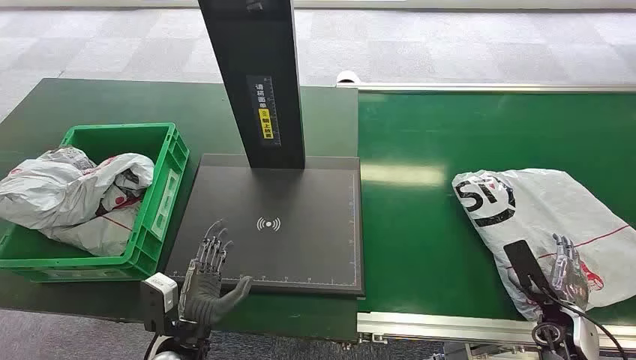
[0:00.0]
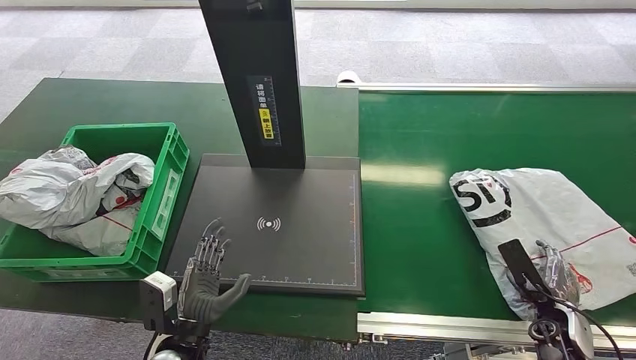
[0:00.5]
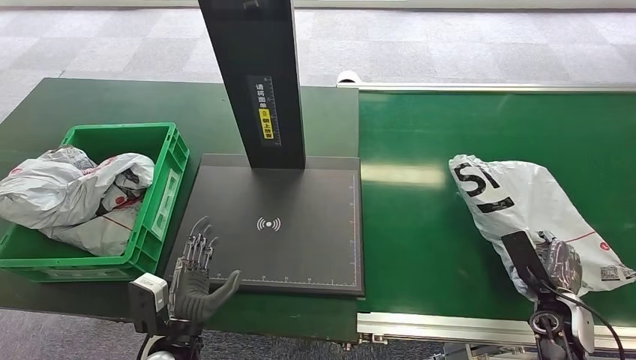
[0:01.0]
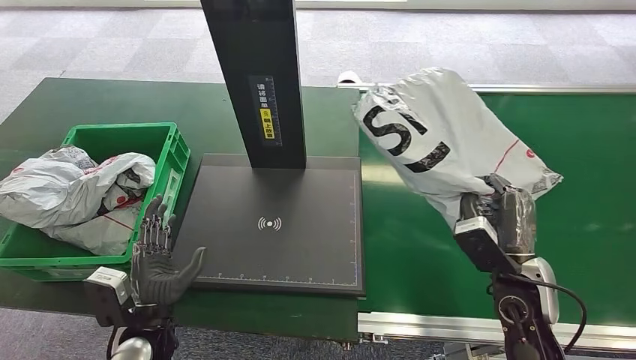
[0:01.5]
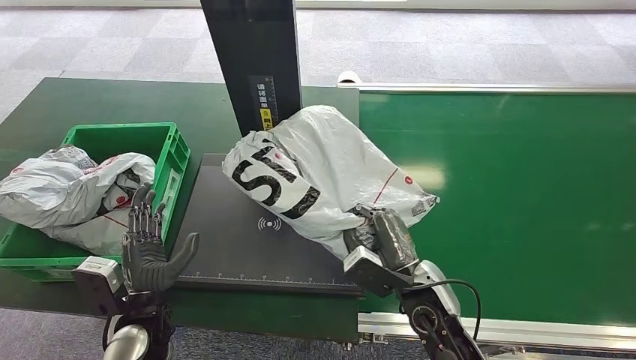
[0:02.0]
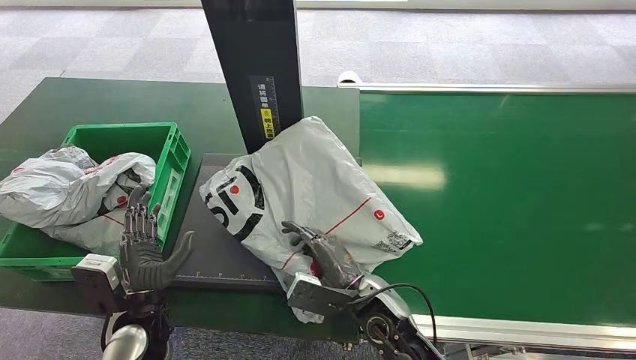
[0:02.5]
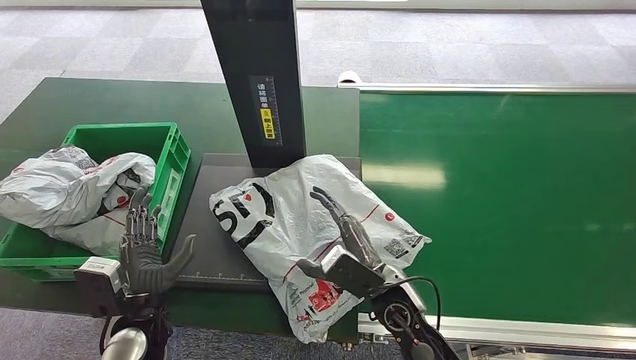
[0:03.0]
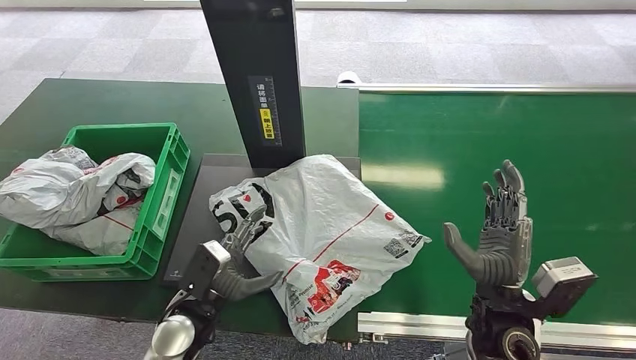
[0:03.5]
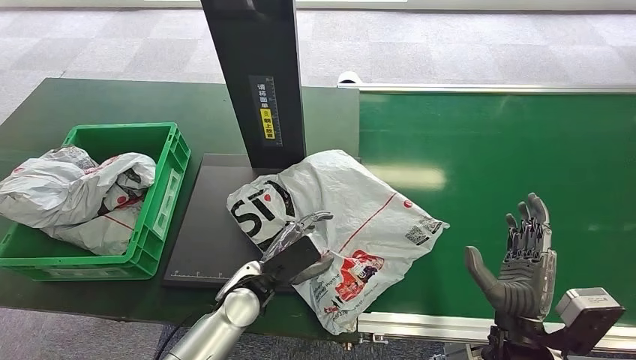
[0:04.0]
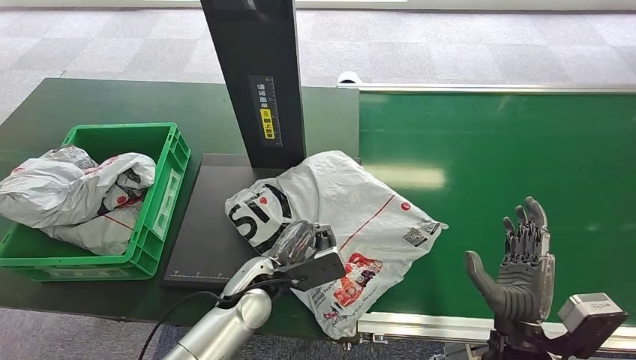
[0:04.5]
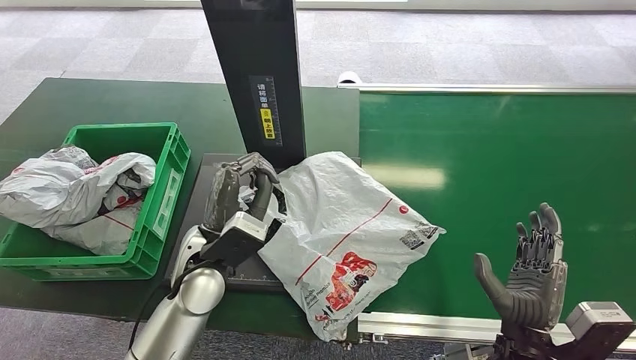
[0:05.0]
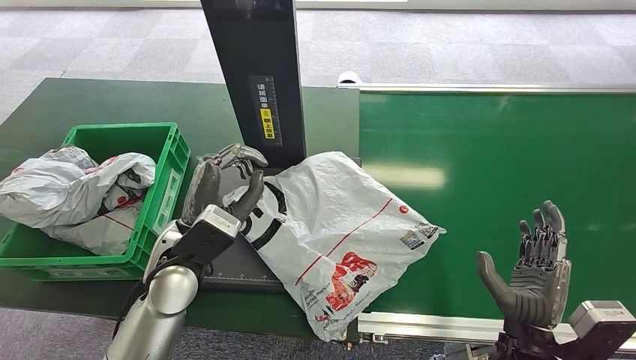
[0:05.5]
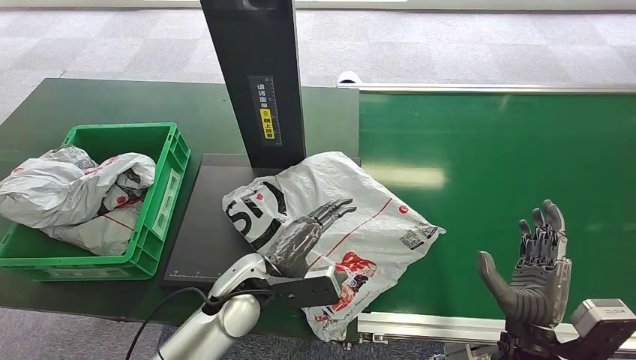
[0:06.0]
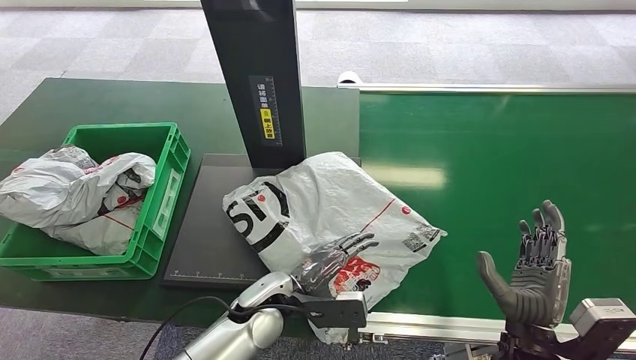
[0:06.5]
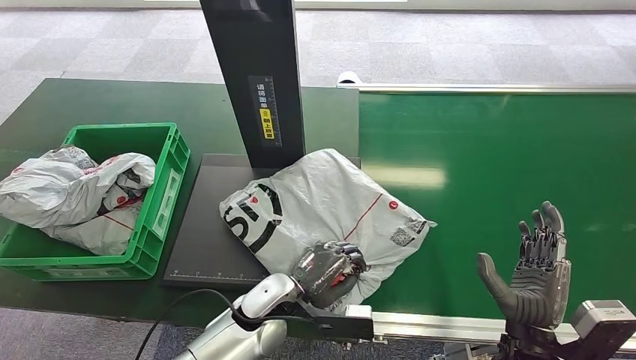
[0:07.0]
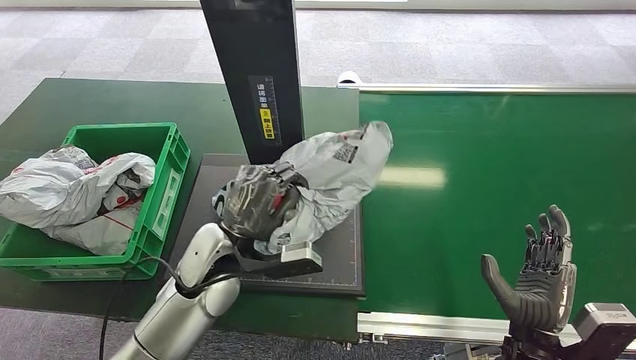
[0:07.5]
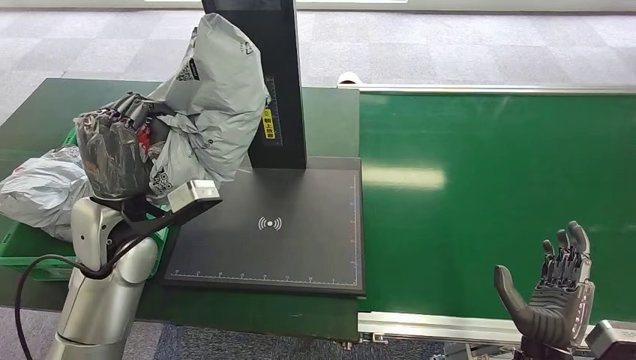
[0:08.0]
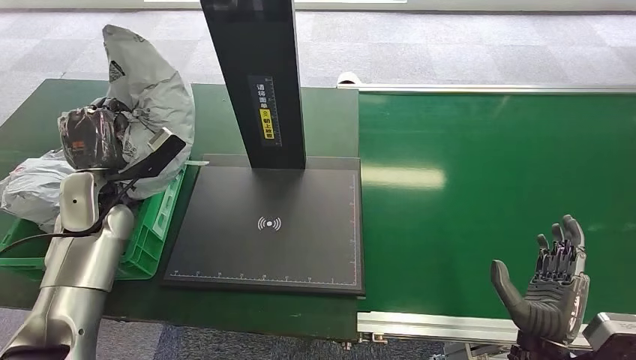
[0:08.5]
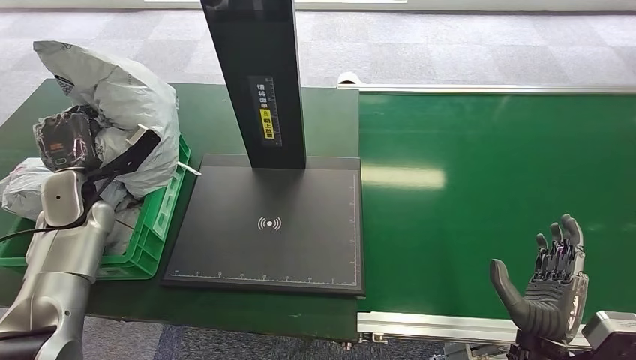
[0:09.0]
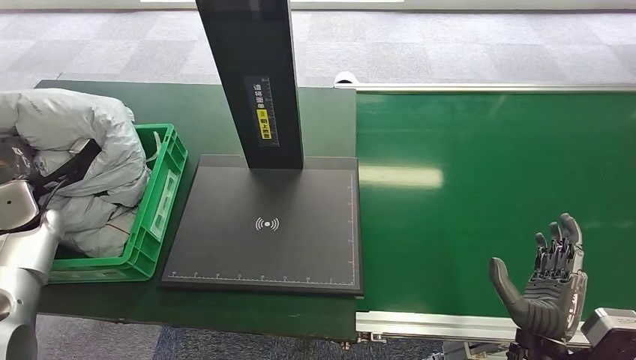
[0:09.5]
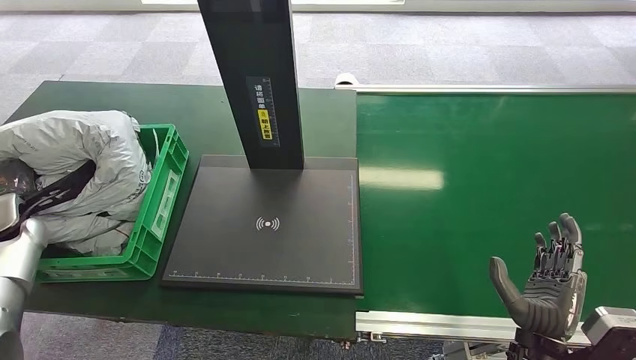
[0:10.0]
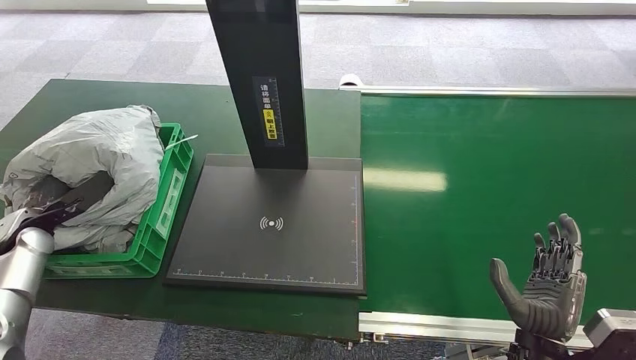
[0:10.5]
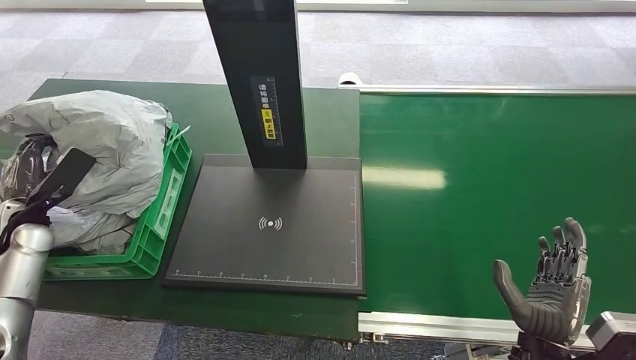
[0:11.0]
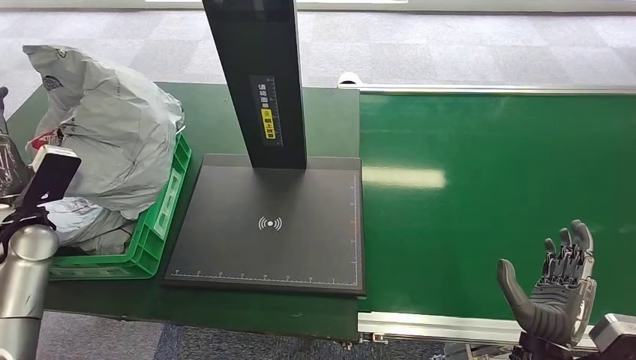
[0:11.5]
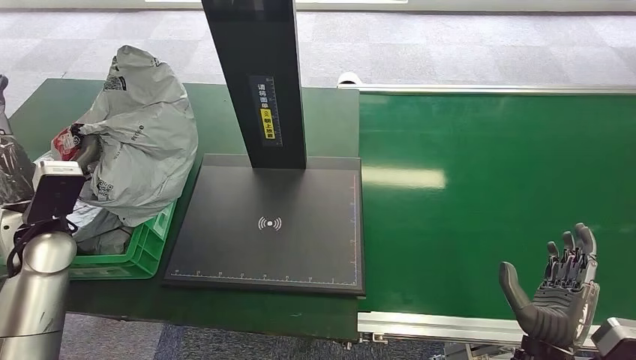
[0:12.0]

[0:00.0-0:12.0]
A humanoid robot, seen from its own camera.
Step, 0:00.0 to 0:01.0: Pick up the package from the conveyor belt.
Step, 0:01.5 to 0:03.0: Place the package onto the inbound machine.
Step, 0:03.5 to 0:07.5: Pick up the package from the inbound machine.
0:10.0 to 0:12.0: The left hand travels to the right and upward by approximately 15 cm.

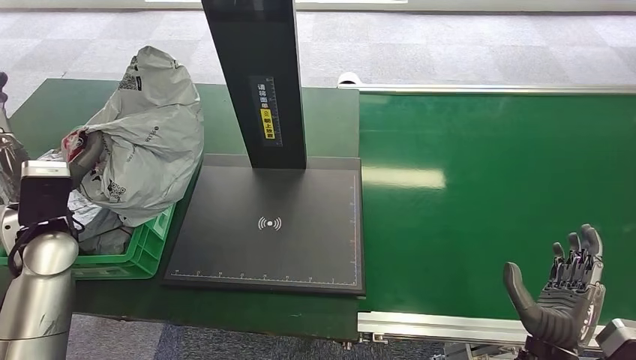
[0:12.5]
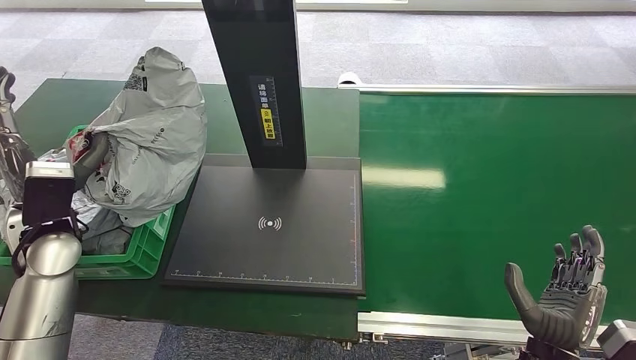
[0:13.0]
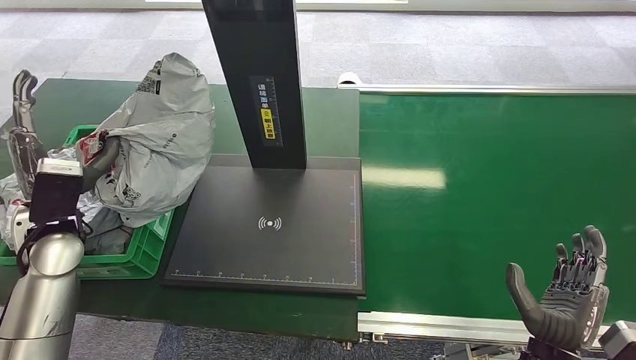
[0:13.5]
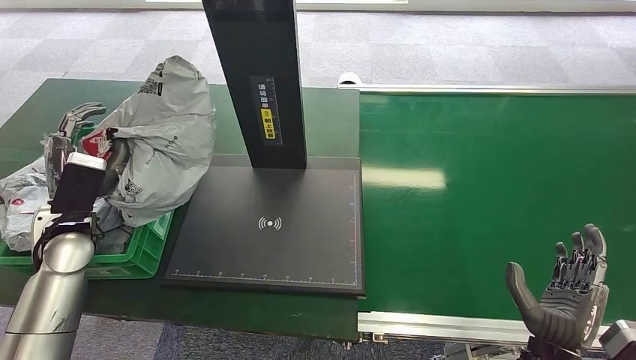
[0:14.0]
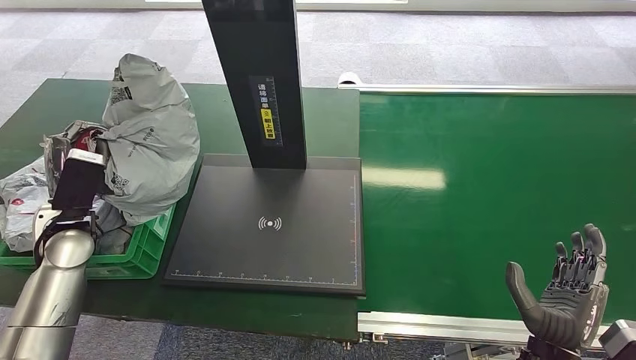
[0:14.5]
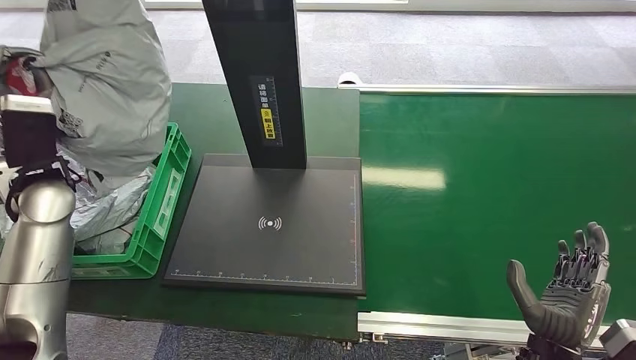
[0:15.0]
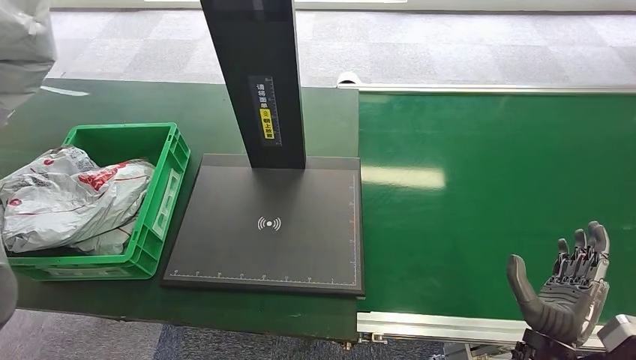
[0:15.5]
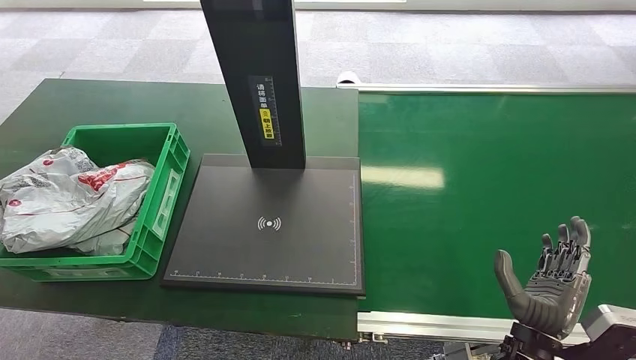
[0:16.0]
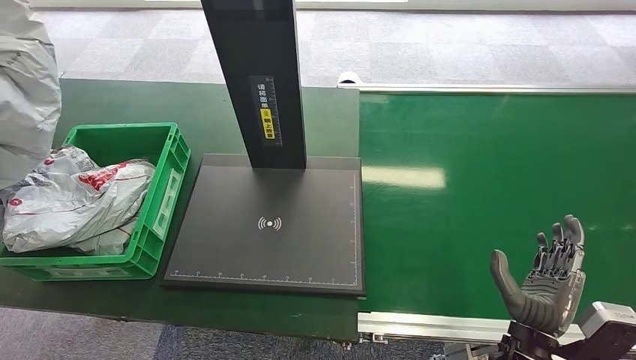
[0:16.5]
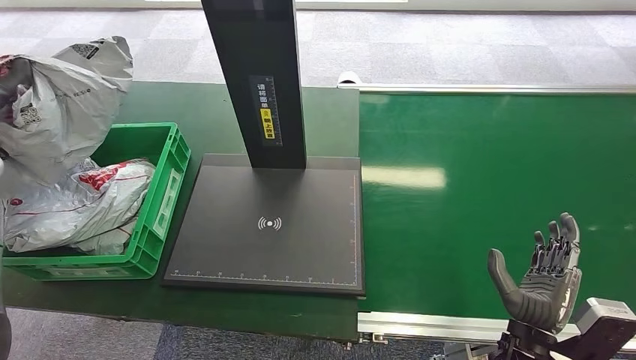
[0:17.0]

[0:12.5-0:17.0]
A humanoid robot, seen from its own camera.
Step, 0:12.5 to 0:17.0: Place the package into the parcel locker.
0:12.5 to 0:14.5: The hands make only small movements.
0:14.5 to 0:17.0: The left hand travels upward and to the left by roughly 15 cm.

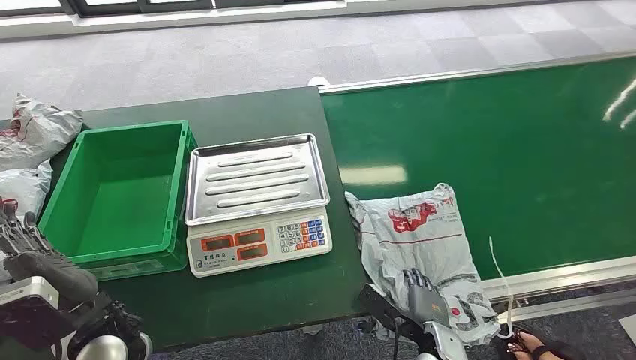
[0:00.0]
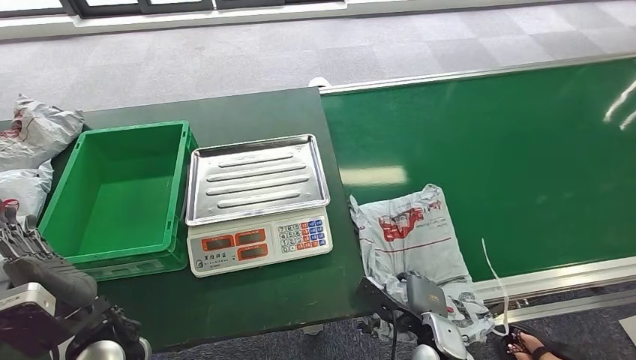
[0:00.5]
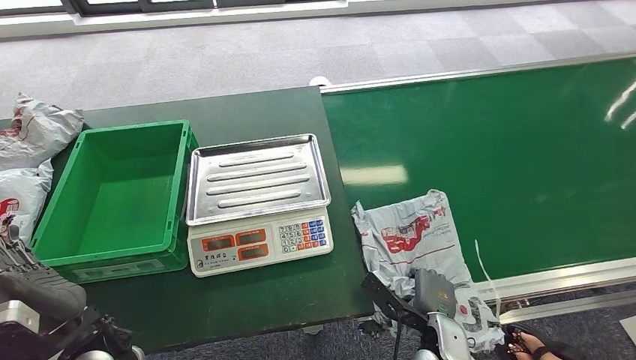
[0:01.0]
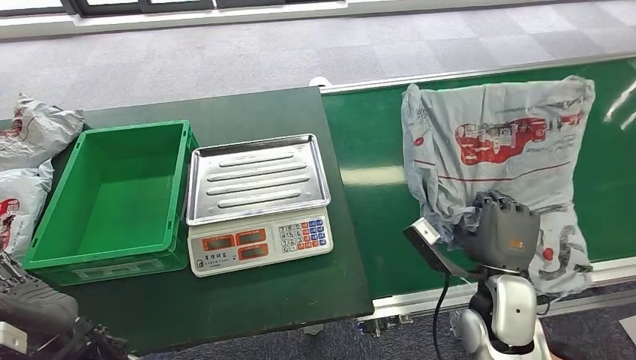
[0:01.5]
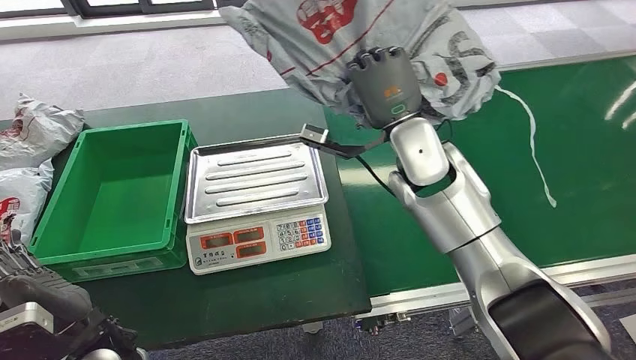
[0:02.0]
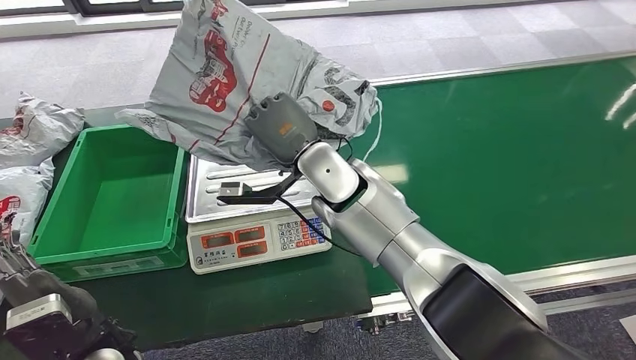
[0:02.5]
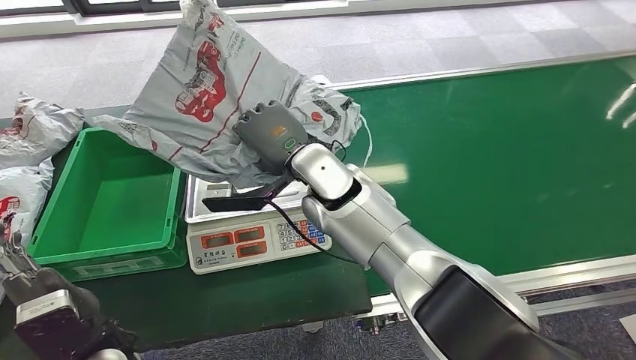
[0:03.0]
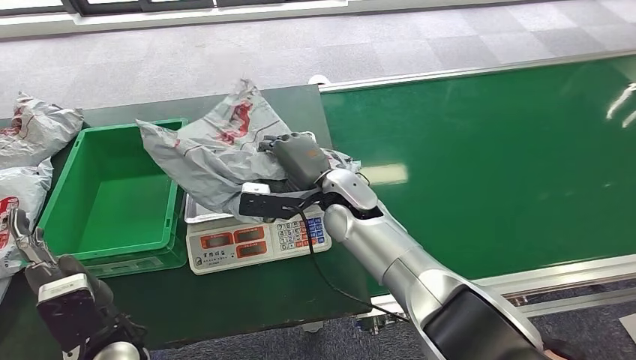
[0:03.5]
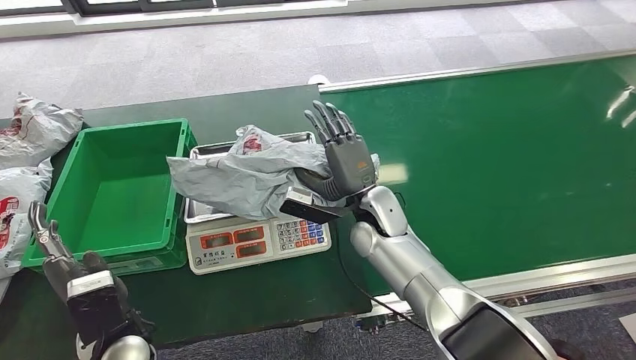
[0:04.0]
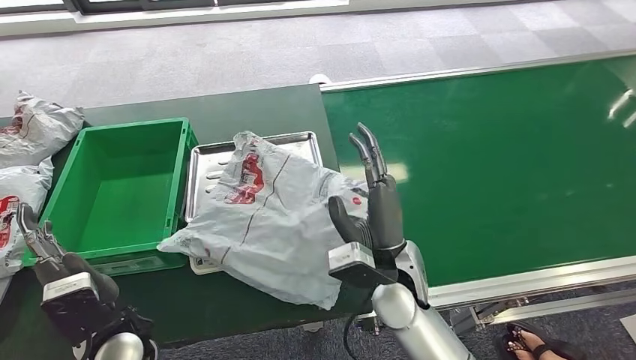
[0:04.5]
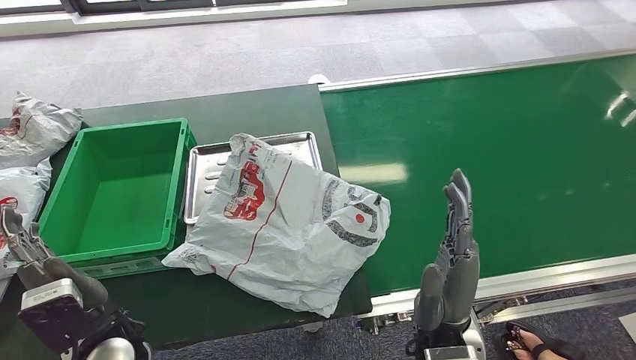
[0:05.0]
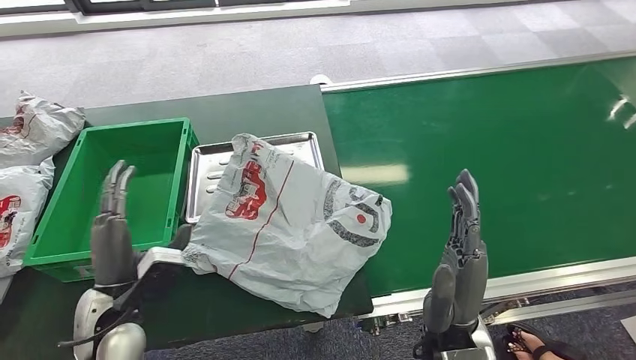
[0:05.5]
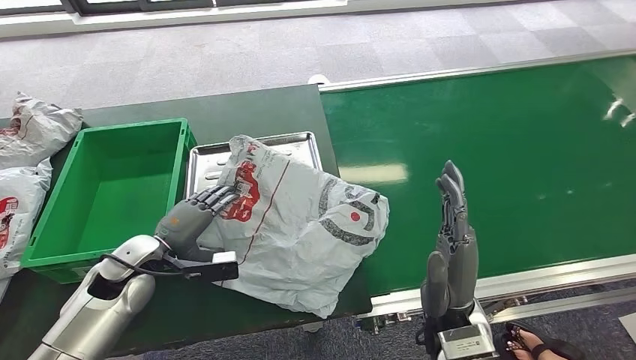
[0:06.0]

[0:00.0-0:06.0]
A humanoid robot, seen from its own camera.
Step, 0:00.0 to 0:02.5: Pick up the package from the conveyor belt.
Step, 0:03.0 to 0:05.0: Place the package onto the inbound machine.
